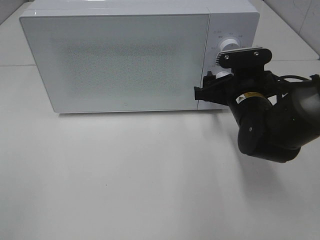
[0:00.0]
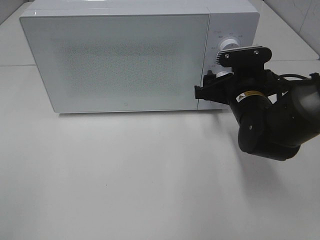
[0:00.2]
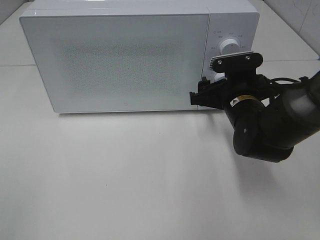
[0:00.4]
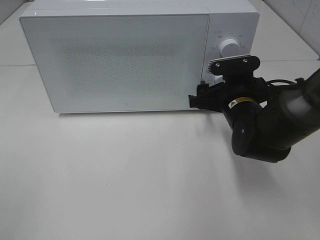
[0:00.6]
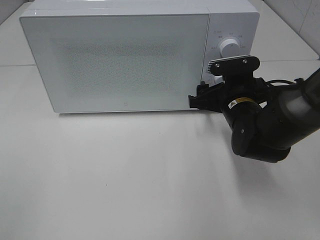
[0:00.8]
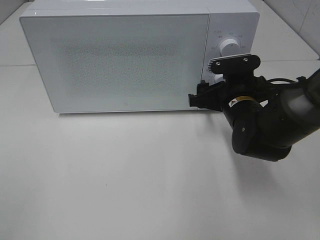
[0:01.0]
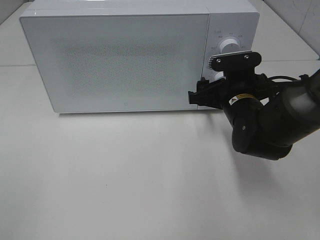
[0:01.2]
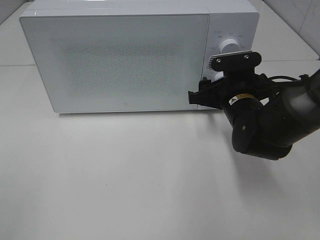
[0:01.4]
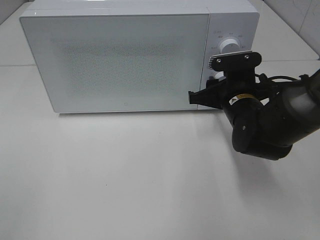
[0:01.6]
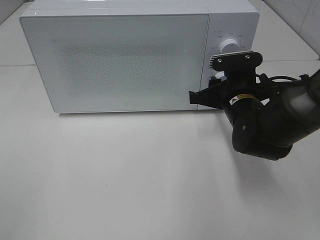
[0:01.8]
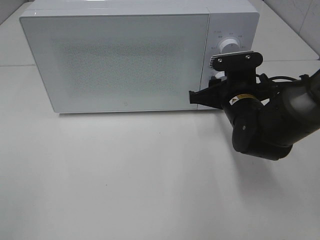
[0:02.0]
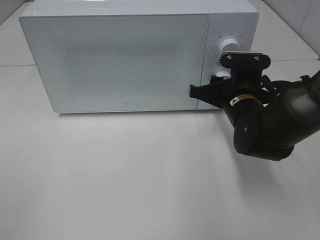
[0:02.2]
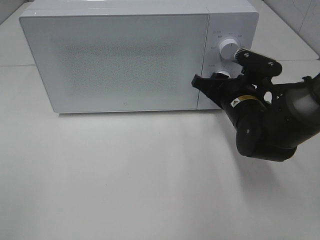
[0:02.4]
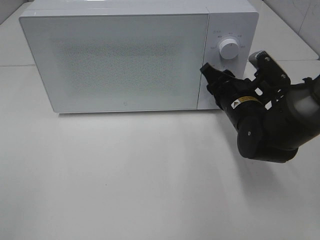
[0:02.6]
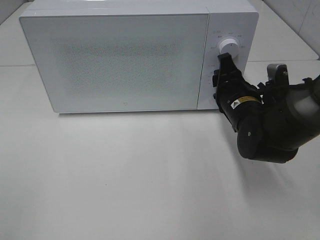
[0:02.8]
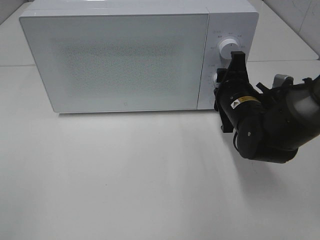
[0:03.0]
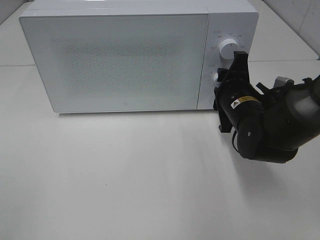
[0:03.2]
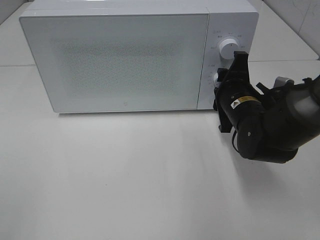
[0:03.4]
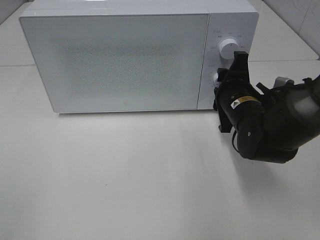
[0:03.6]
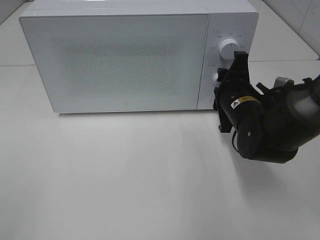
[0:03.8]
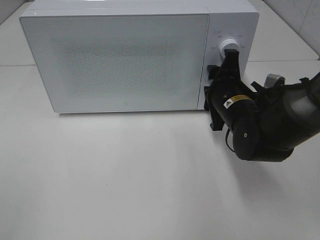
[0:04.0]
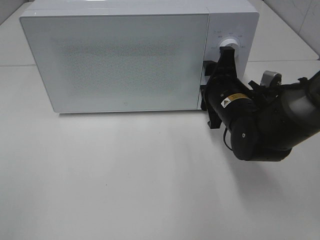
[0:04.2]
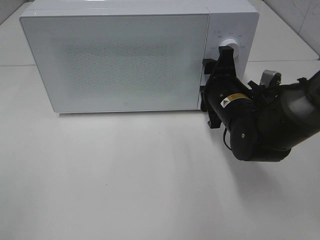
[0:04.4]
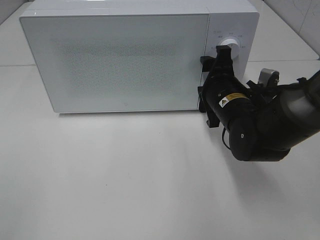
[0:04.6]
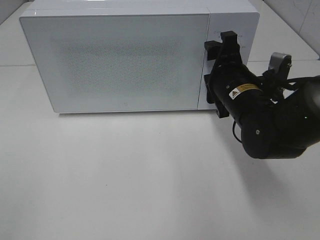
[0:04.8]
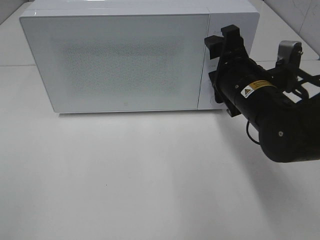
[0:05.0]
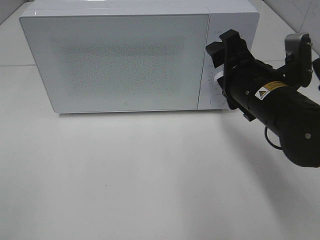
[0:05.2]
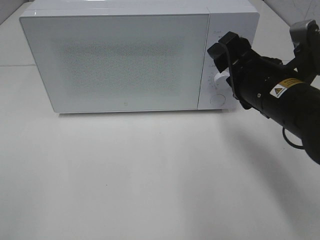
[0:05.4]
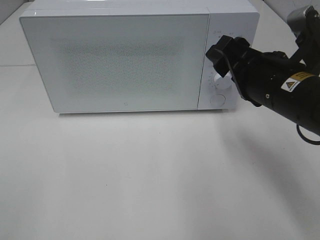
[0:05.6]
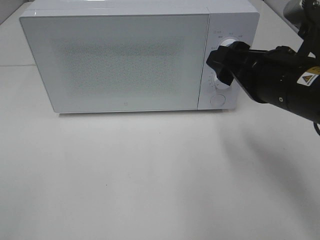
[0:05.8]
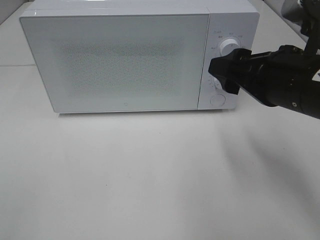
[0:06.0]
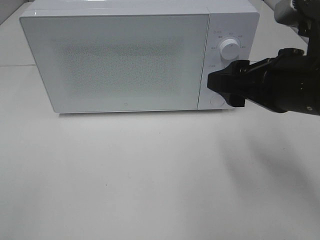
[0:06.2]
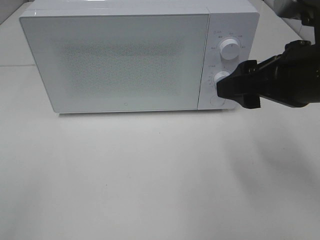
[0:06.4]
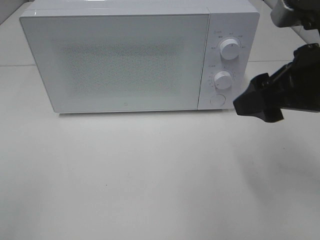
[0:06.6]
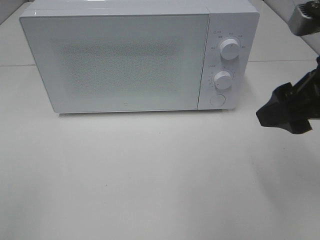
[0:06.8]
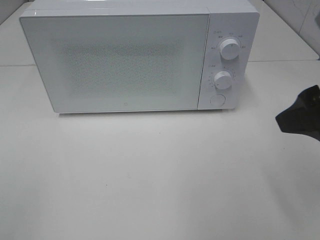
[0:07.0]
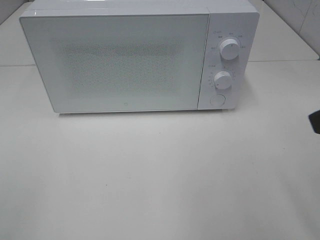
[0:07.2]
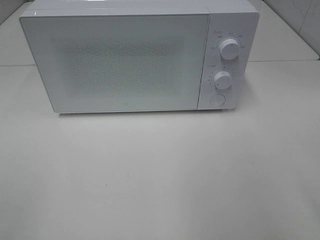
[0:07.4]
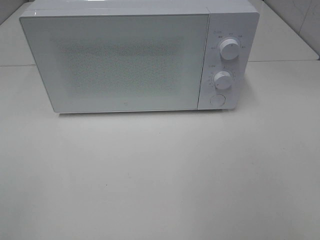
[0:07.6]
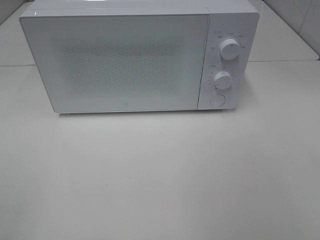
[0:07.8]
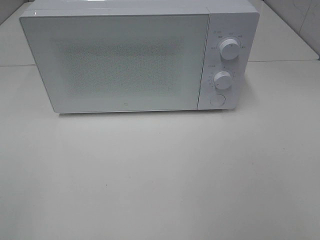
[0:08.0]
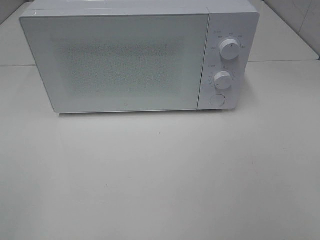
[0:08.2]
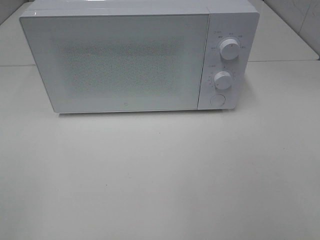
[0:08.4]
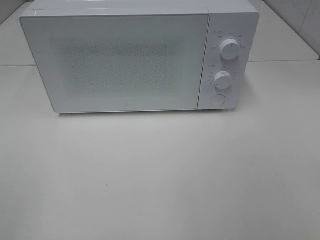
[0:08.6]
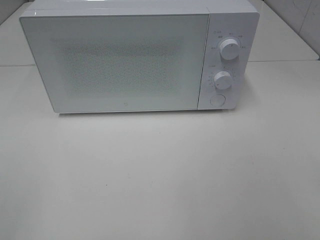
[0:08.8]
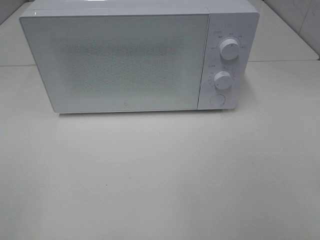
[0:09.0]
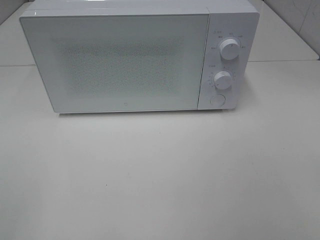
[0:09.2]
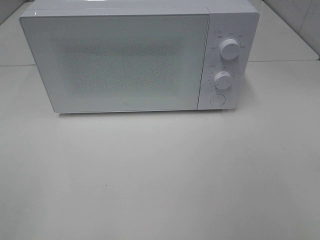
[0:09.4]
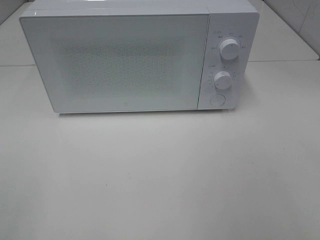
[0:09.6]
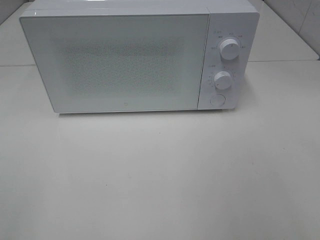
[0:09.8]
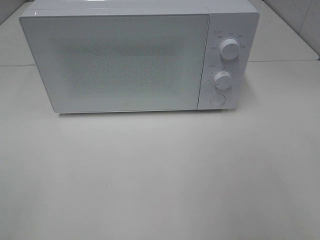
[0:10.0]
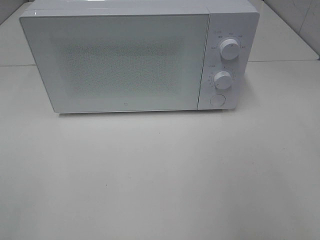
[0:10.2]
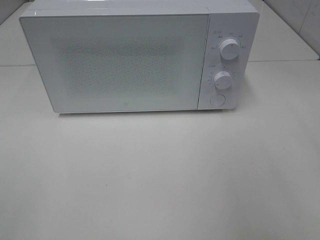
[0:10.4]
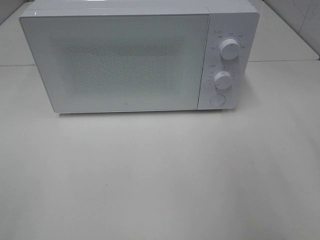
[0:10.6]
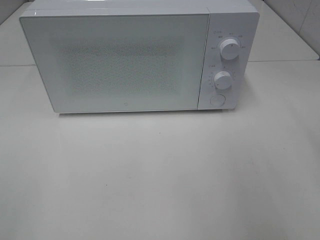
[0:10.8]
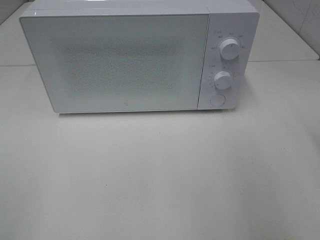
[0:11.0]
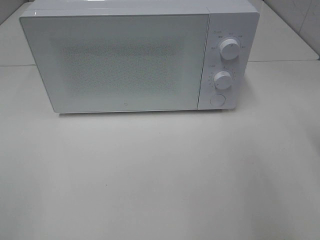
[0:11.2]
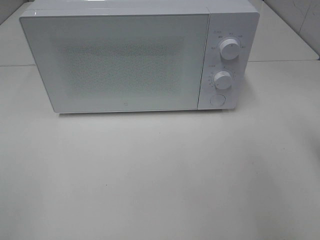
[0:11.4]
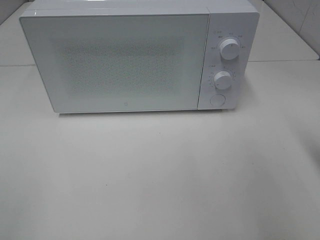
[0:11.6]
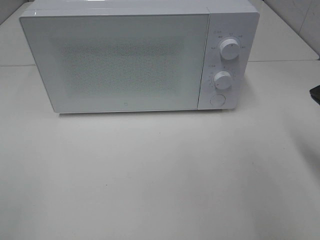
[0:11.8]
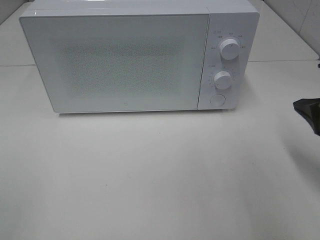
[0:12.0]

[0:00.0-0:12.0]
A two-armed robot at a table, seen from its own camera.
Task of the whole recording: Heat the burger.
Step, 0:00.0 to 0:04.0: Right hand: twist timer button.
0:00.0 to 0:01.6: The right gripper closes its fingers.
0:03.0 to 0:04.4: The grippers make only small movements.
0:04.4 to 0:06.0: The right gripper moves upward and backward, some 15 cm.
0:06.0 to 0:07.6: The right gripper is displaced backward, to the right and upward by approximately 20 cm.
0:10.4 to 0:12.0: The right gripper moves downward and forward, some 15 cm, and closes up.

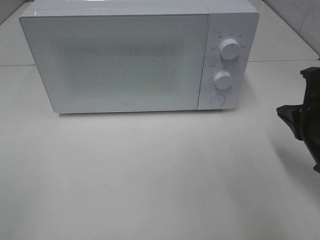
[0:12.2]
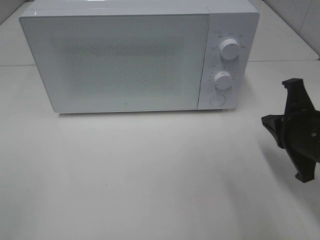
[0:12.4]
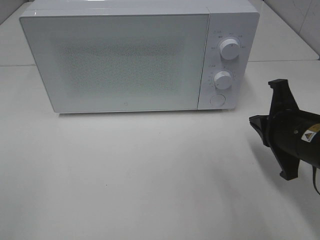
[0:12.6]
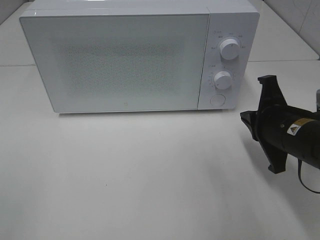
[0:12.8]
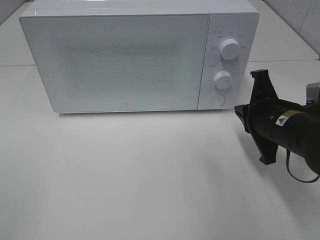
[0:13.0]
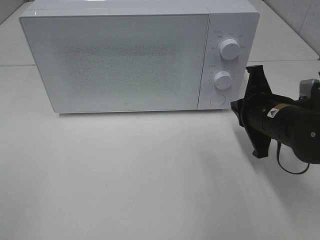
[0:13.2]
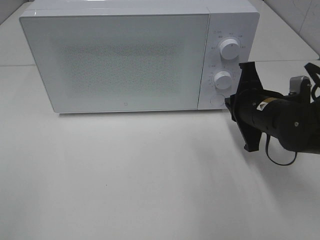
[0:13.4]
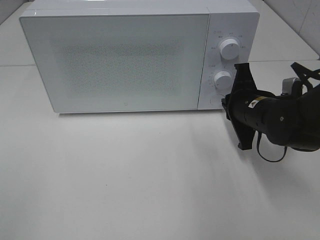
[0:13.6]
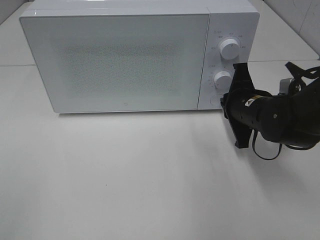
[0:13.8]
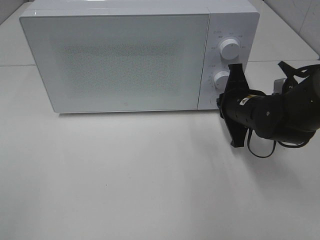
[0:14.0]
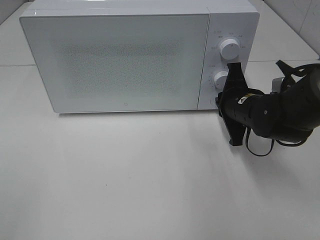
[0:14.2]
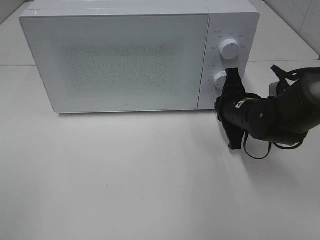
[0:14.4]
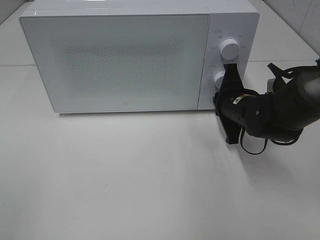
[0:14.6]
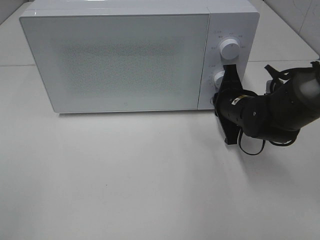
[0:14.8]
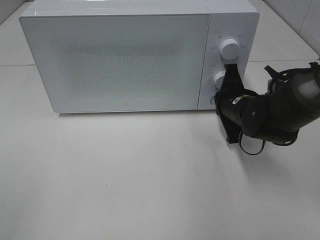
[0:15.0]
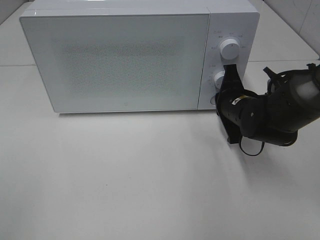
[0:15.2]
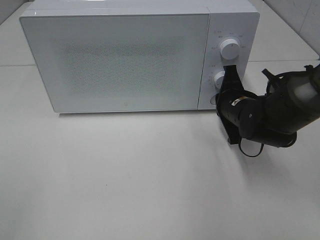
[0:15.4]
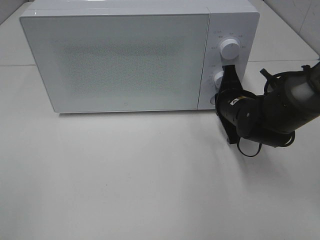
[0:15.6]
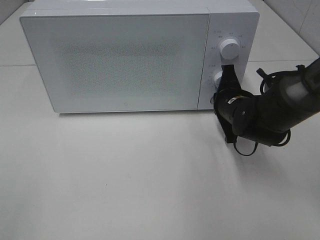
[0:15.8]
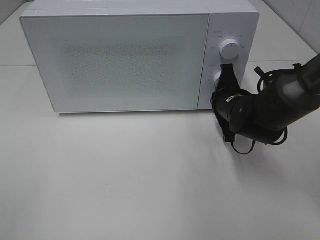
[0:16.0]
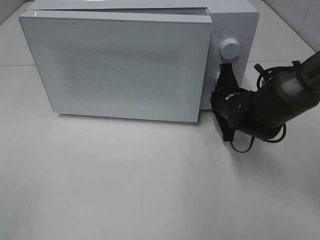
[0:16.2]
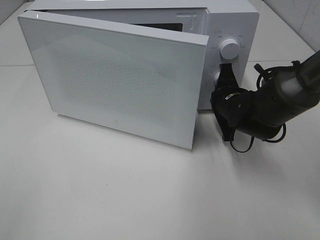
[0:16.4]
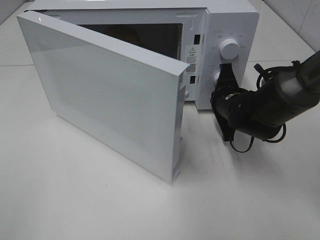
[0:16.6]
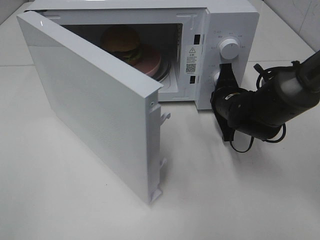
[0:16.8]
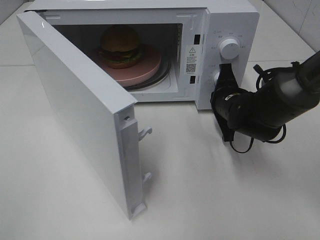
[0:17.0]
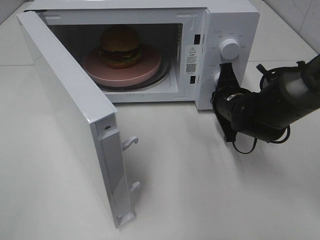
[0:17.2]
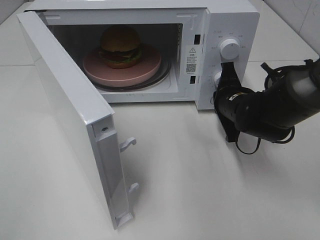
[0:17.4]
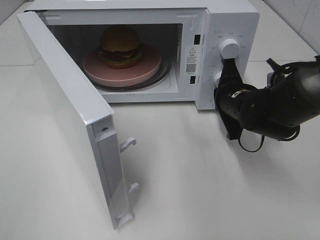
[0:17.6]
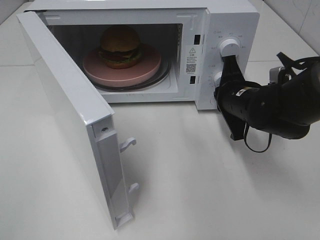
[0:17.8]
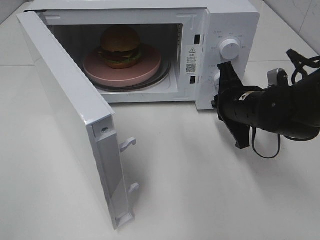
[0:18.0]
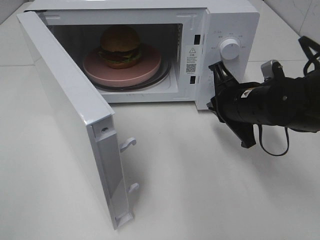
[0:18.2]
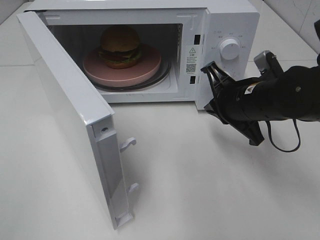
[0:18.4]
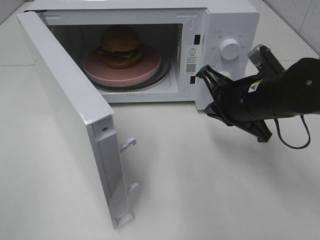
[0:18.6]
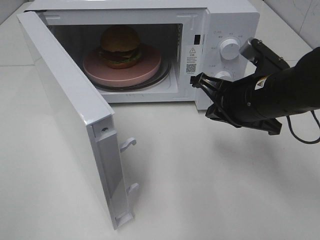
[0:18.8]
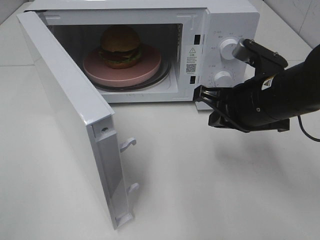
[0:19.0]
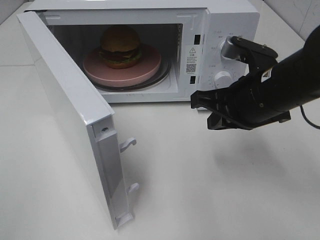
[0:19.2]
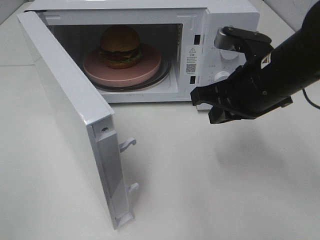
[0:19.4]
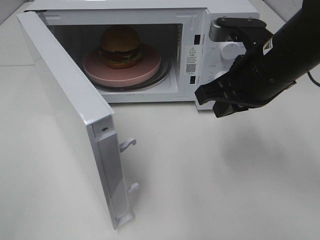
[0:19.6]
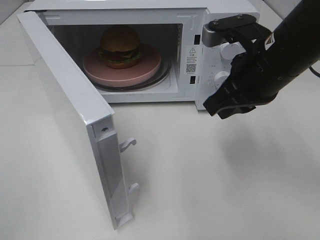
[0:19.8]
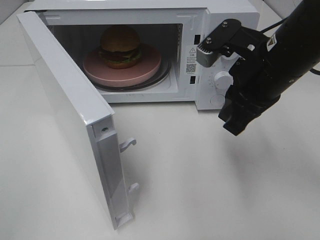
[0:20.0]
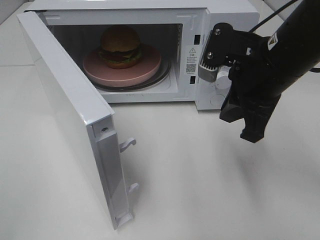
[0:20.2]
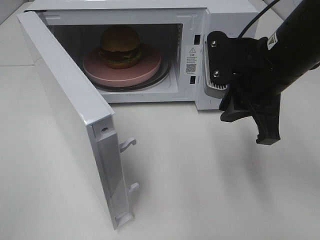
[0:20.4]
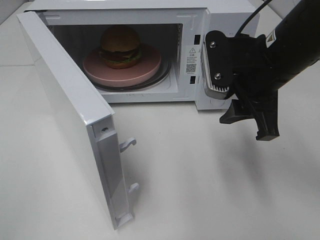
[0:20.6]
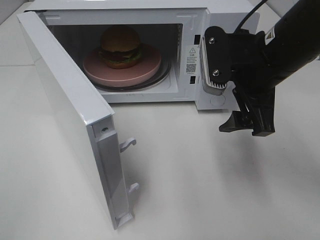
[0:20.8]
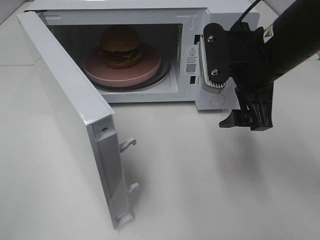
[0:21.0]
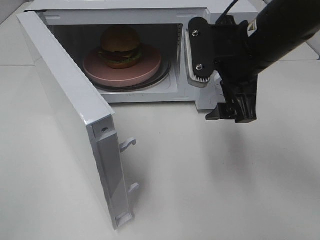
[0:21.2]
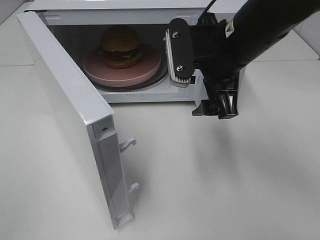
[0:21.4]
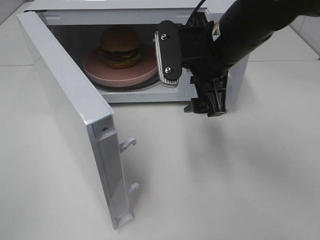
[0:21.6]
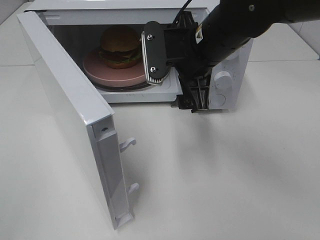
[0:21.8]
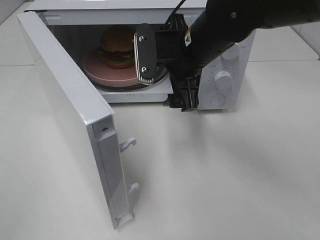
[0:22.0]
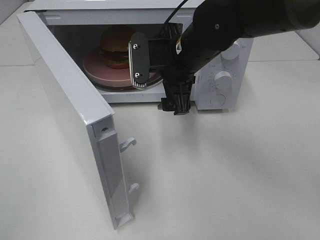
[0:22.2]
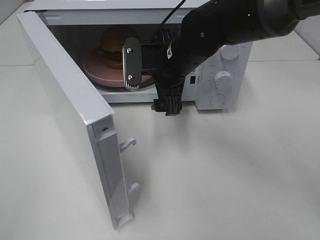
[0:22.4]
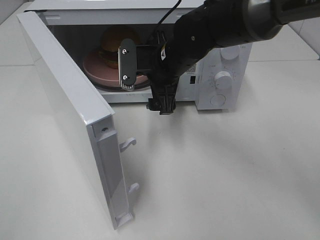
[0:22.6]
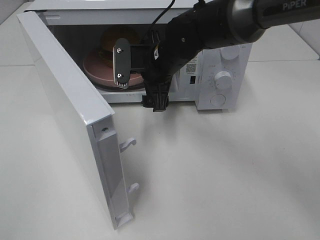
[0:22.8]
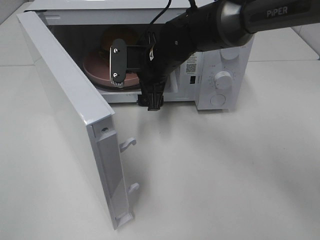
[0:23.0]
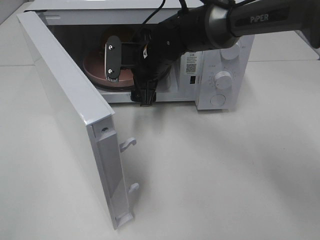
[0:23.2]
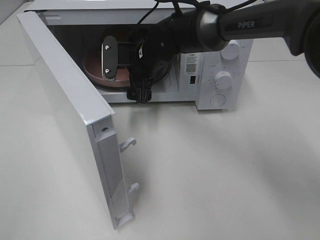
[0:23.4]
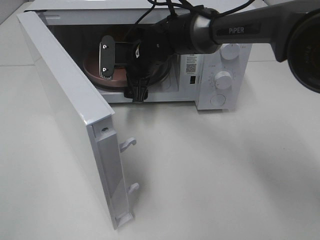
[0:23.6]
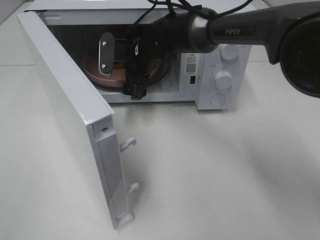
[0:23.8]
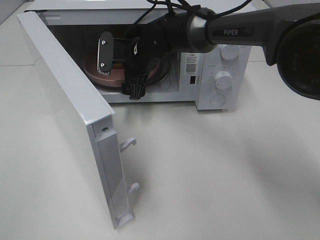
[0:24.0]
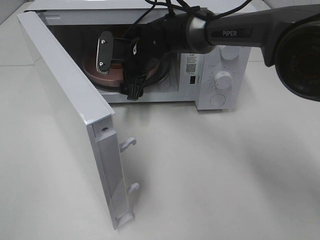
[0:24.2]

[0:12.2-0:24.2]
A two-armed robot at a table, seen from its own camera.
Task of the whole recording: Heat the burger.
Step, 0:12.2 to 0:17.6: Right hand: press the switch.
0:12.2 to 0:13.8: The right gripper travels forward, to the left and downward by roughly 15 cm.
0:13.8 to 0:15.2: The grippers stay close to where they were, moving slightly.
0:16.6 to 0:18.2: The right gripper travels backward and upward by some 10 cm.
0:18.2 to 0:19.8: The right gripper heads upward, covering some 10 cm.
0:19.8 to 0:21.2: The right gripper opens its fingers.
0:21.2 to 0:22.6: The right gripper travels to the left, forward and downward by about 15 cm.
0:22.6 to 0:24.2: The right gripper shifts roughly 5 cm forward.
